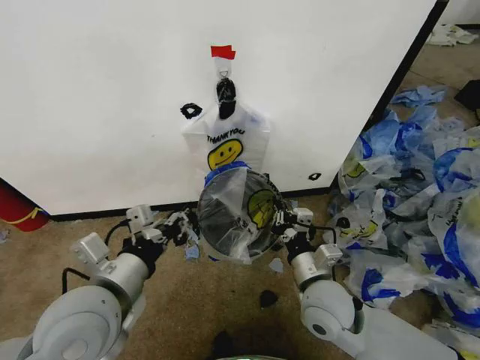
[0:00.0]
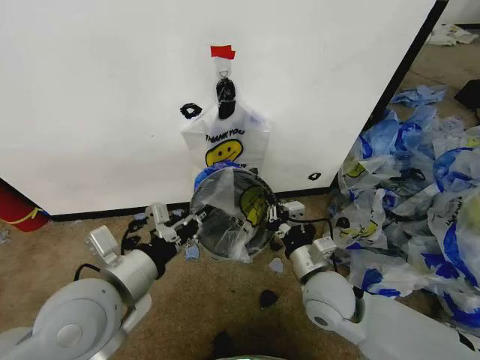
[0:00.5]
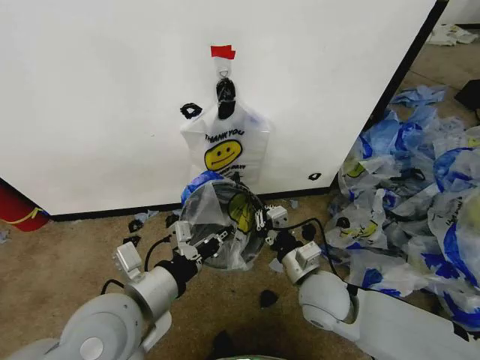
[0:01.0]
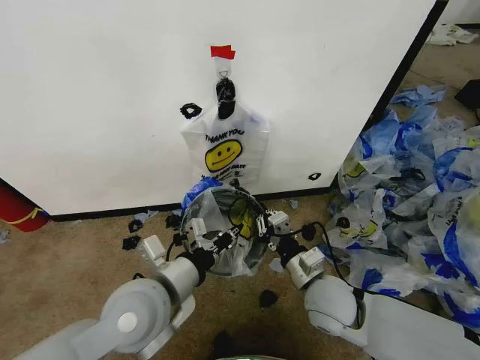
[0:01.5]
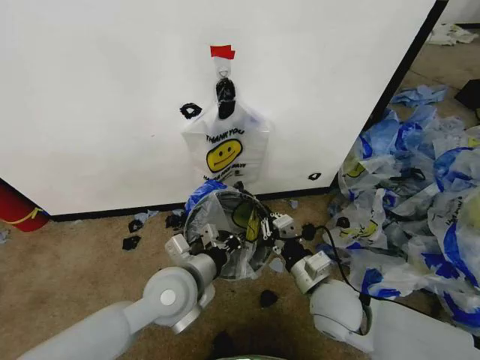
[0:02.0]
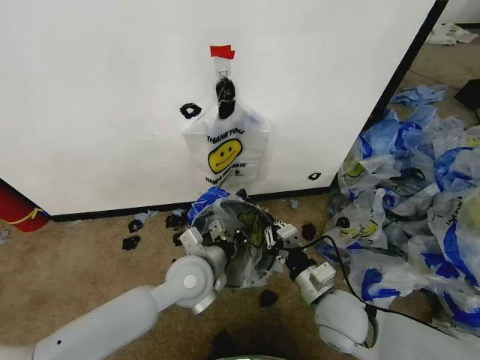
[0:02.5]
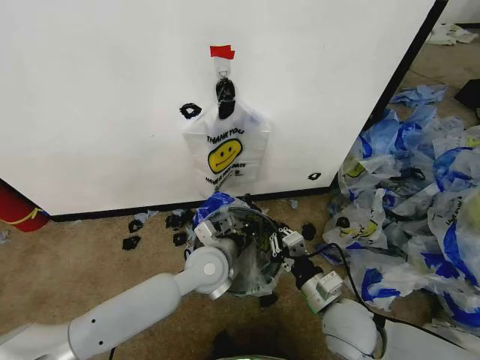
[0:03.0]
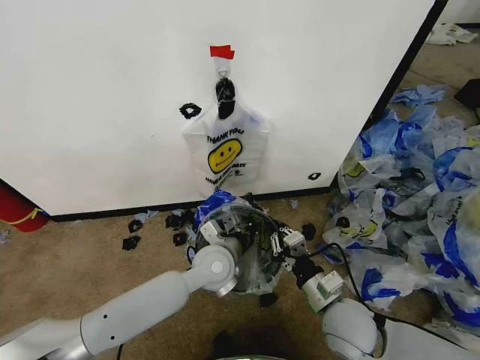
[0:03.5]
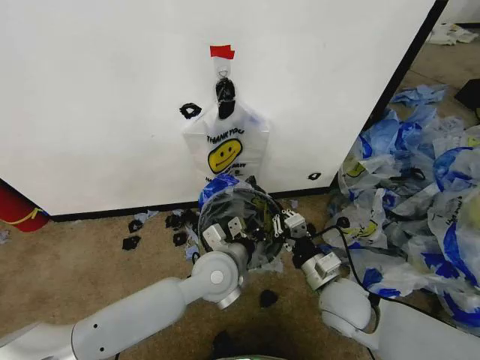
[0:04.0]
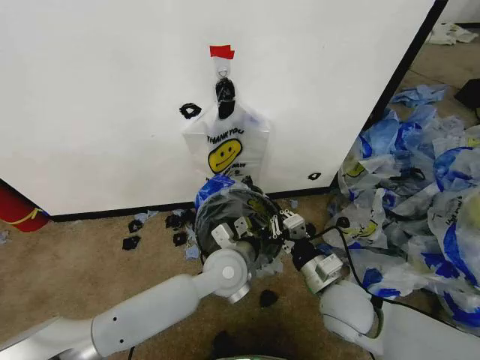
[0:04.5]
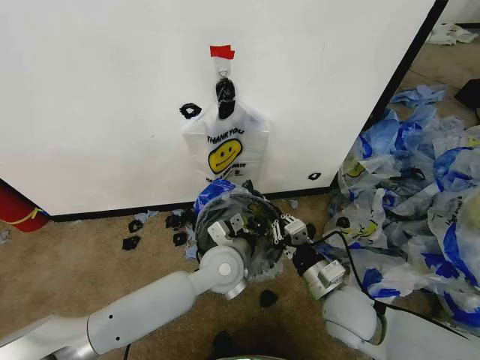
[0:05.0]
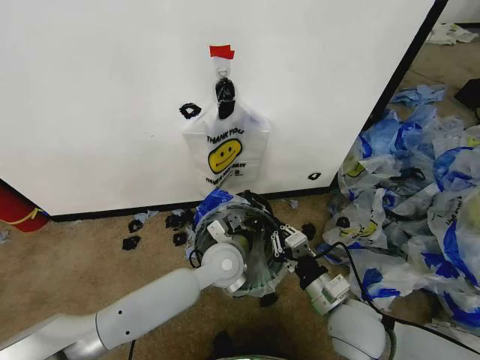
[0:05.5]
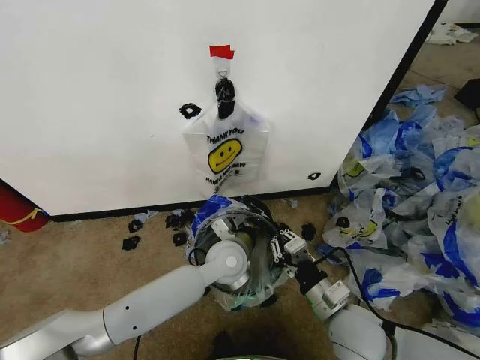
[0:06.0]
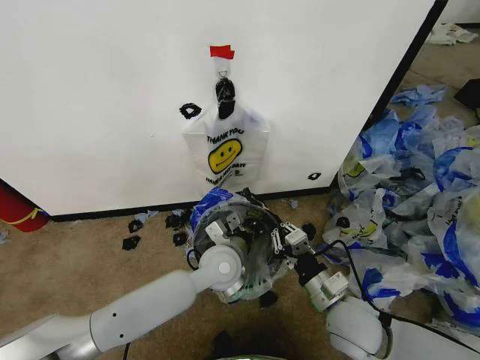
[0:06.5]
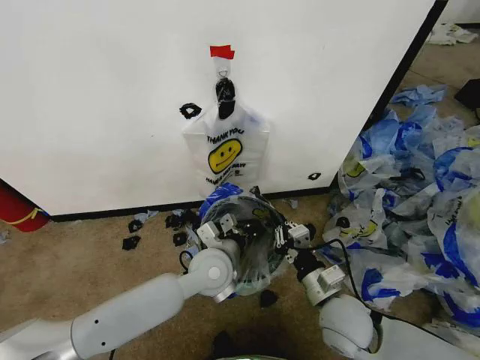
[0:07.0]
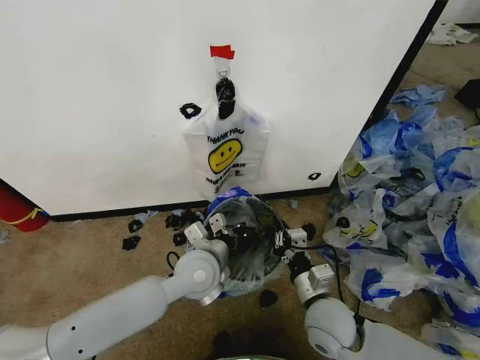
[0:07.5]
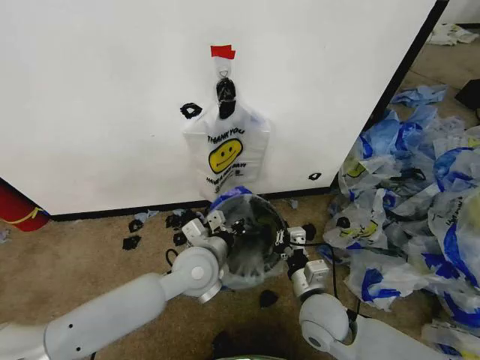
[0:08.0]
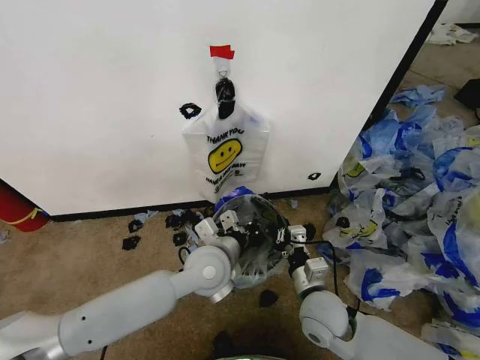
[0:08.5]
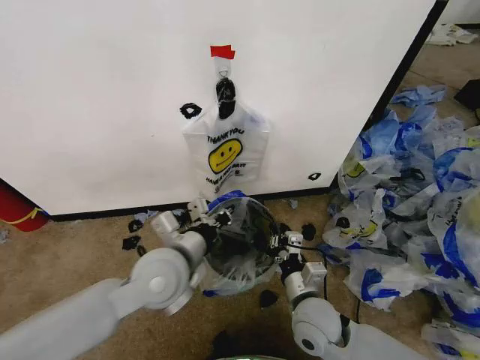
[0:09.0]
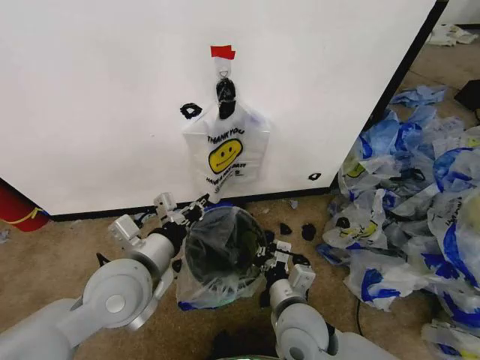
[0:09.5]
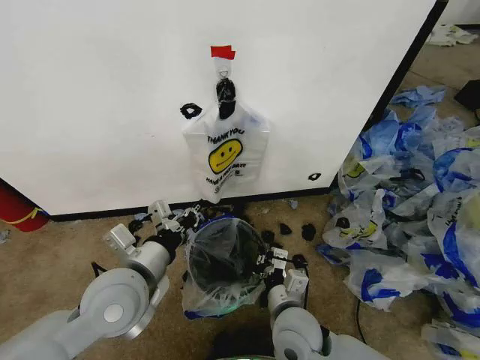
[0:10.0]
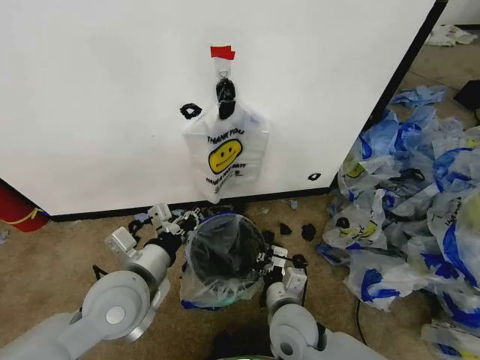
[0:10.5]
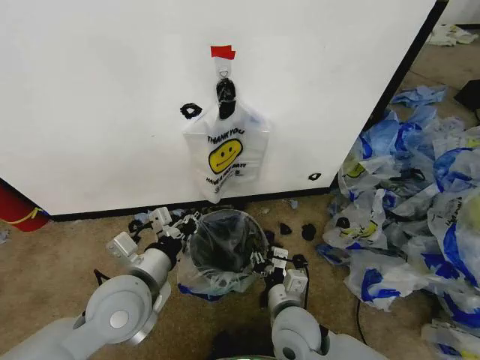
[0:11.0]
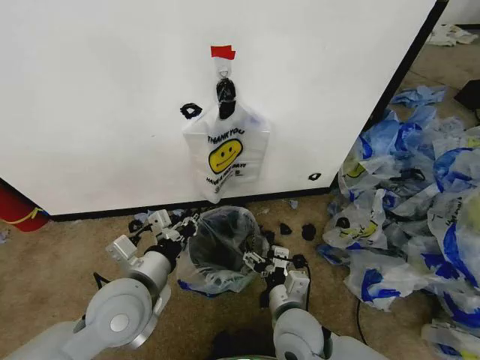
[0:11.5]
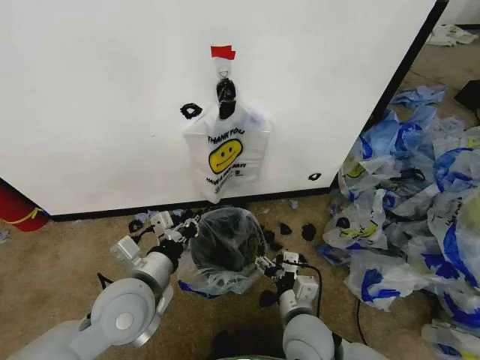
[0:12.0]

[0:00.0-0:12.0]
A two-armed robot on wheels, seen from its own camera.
Task of the whole recording: Pick up the garbage bag from the wall and place it over the trash bin.
0:00.0 to 0:02.0: The left gripper goes some 15 cm to the right, downward and forward.
0:02.0 to 0:04.0: The left gripper is displaced to the right by approximately 5 cm.
0:04.0 to 0:06.0: The right gripper is displaced backward by approximately 5 cm; the left gripper shifts by approximately 5 cm.
0:06.0 to 0:08.0: The left gripper is displaced to the left by some 5 cm; the right gripper shifts by about 5 cm.
0:08.0 to 0:10.0: The right gripper travels to the left by approximately 5 cm. The left gripper goes roughly 15 cm to the left, backward and upward.
0:10.0 to 0:12.0: The right gripper opens.

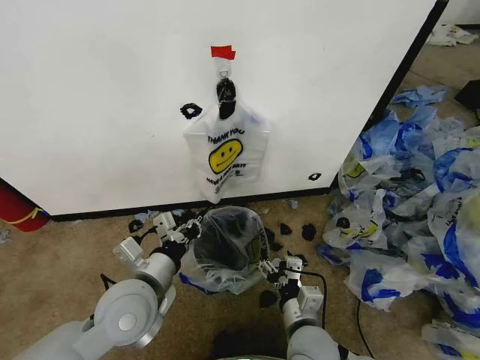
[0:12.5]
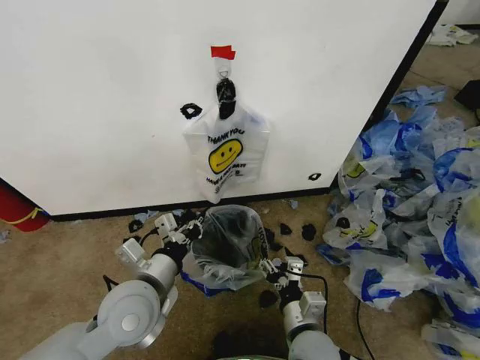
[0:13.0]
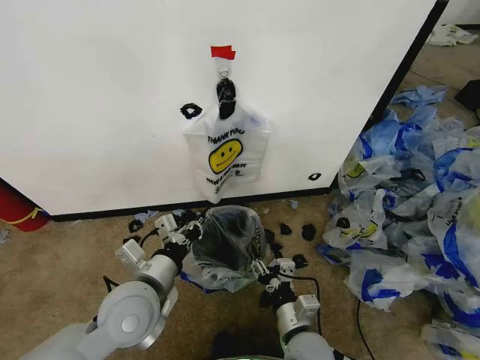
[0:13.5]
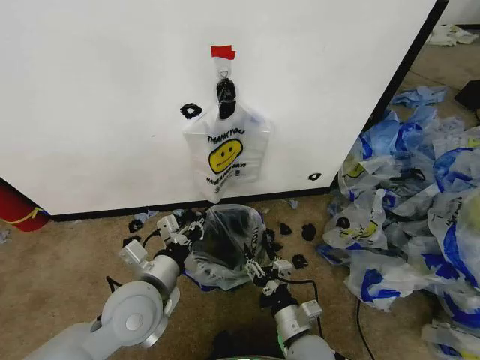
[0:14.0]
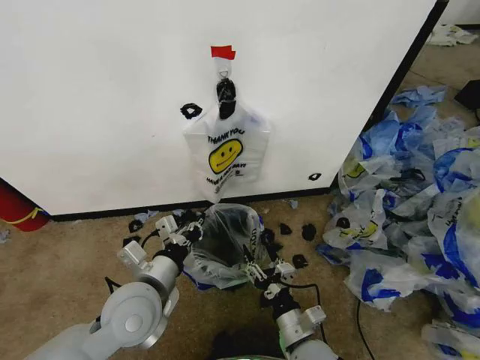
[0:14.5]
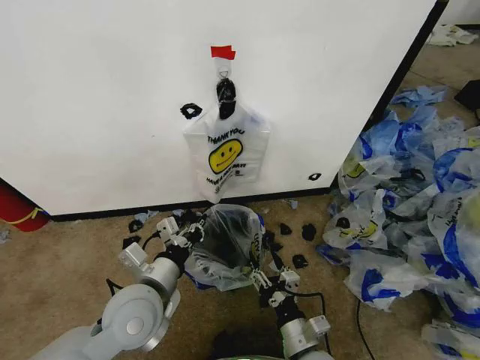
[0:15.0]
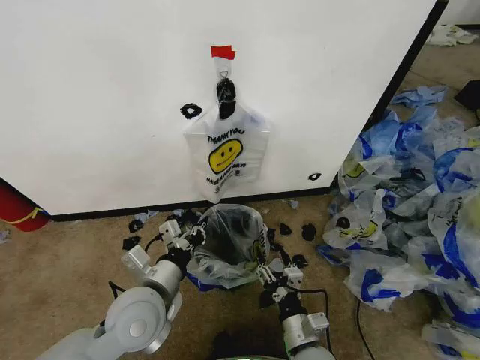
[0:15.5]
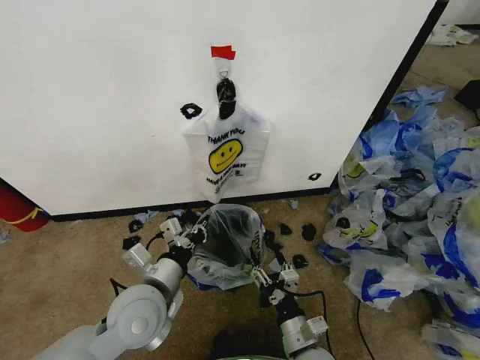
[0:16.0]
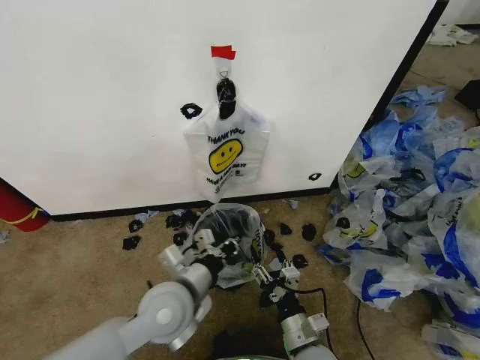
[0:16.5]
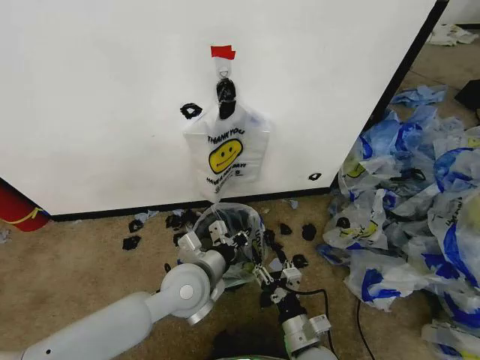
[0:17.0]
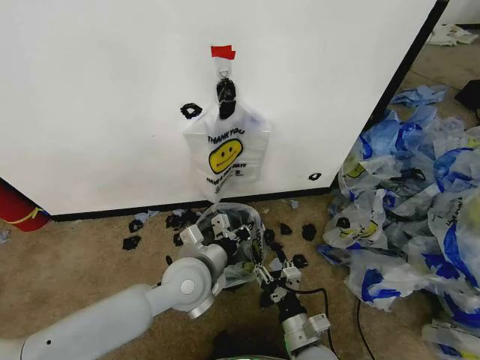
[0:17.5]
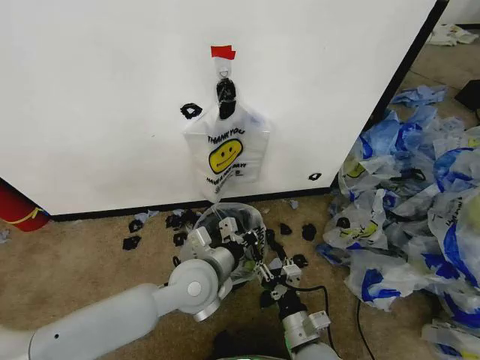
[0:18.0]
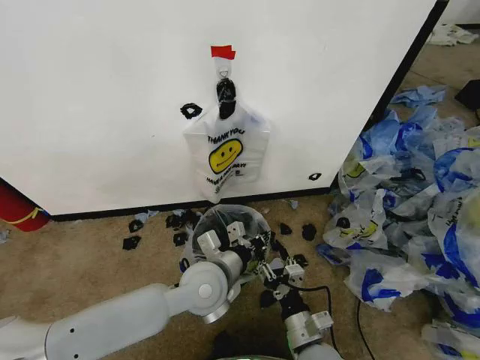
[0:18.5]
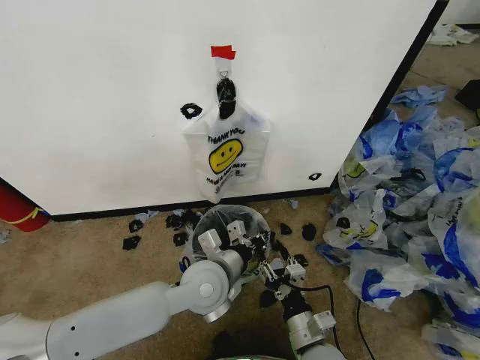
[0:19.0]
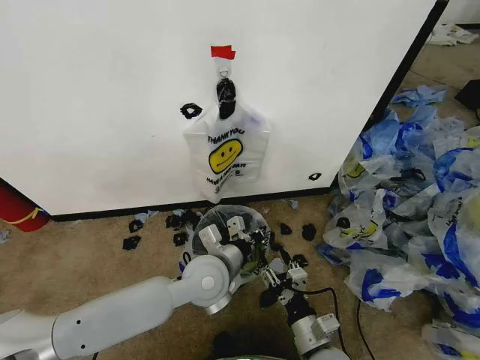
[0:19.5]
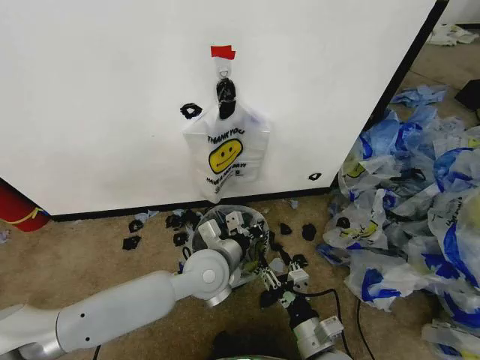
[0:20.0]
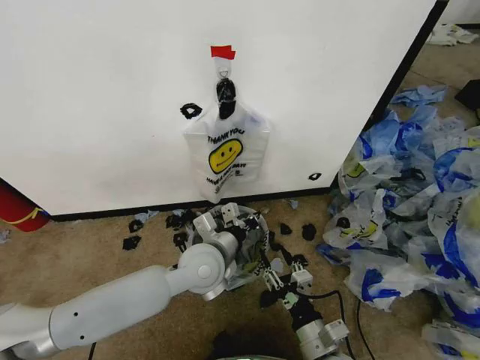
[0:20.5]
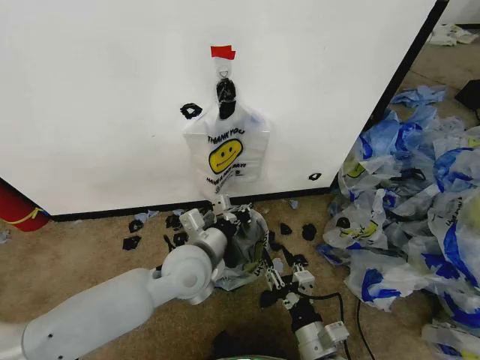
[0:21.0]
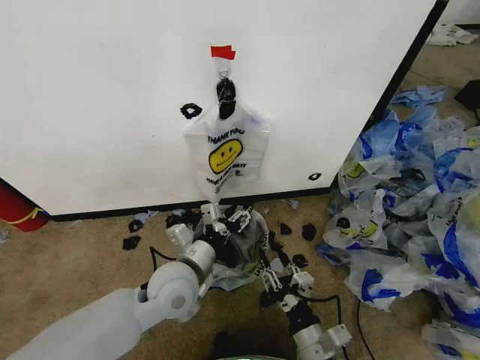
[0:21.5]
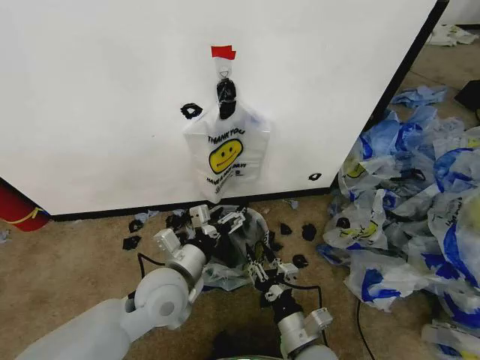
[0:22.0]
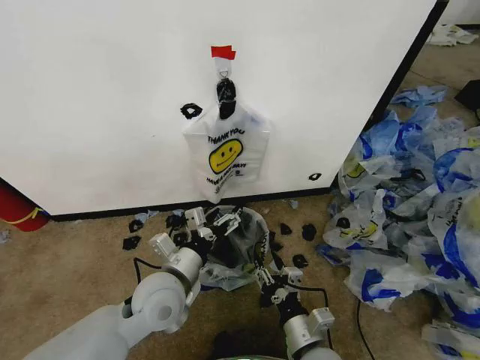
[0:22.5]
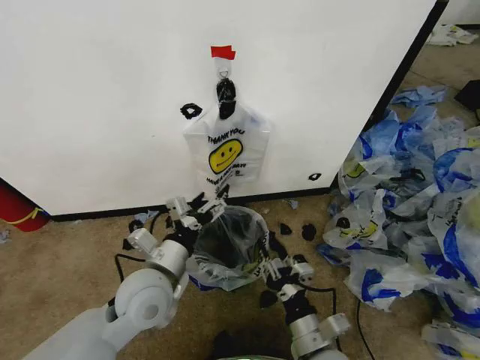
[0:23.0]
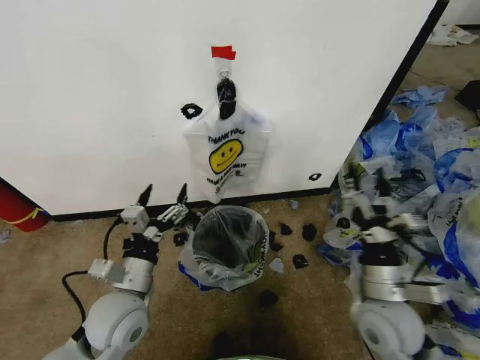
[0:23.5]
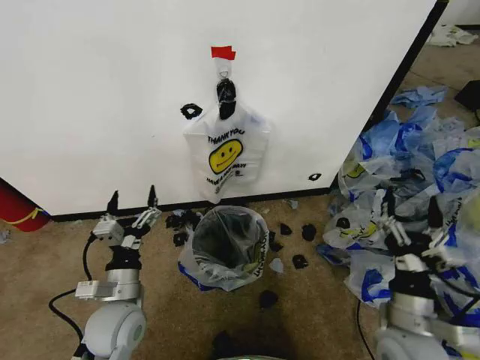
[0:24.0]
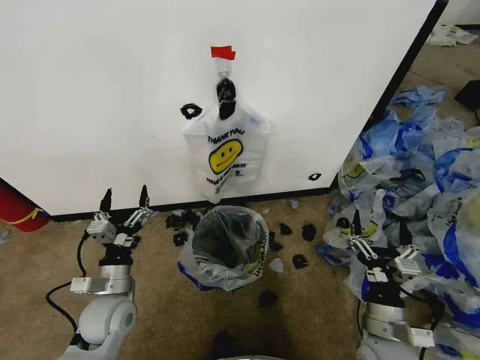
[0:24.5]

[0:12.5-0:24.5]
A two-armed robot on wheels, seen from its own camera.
Task of the whole recording: Pick up the garbage bag from the wall and place it over the trash bin.
0:14.5 to 0:16.5: The left gripper travels to the right by roughly 5 cm.
0:16.5 to 0:18.5: The left gripper goes approximately 5 cm to the right.
0:18.5 to 0:20.5: There are only small adjustments of the grippers.
0:20.5 to 0:22.5: The left gripper goes about 10 cm to the left and backward, and opens.
0:22.5 to 0:24.5: The left gripper shifts roughly 15 cm to the left and downward, while the right gripper goes approximately 15 cm to the right, and opens.

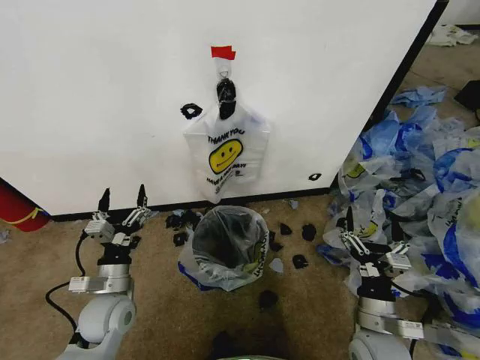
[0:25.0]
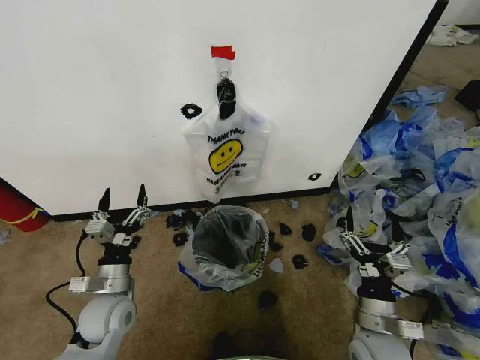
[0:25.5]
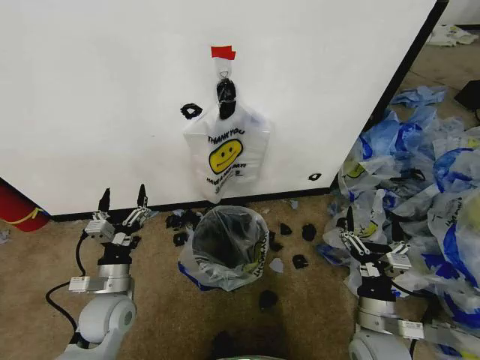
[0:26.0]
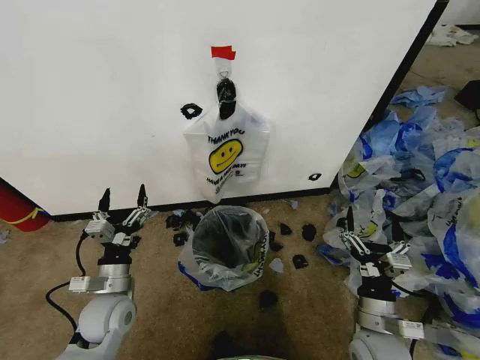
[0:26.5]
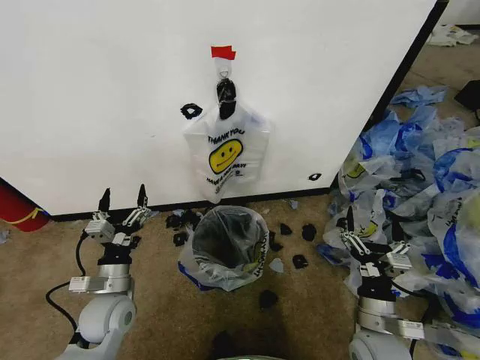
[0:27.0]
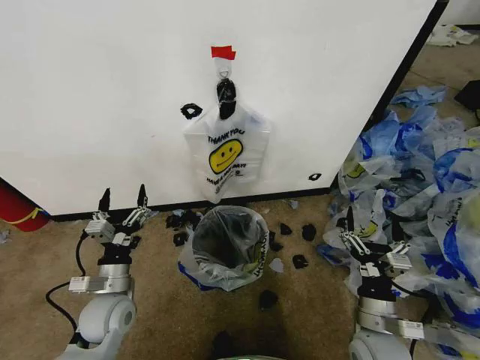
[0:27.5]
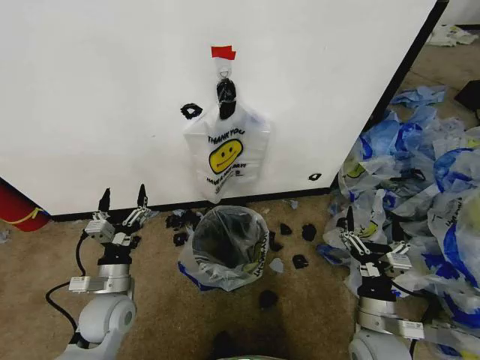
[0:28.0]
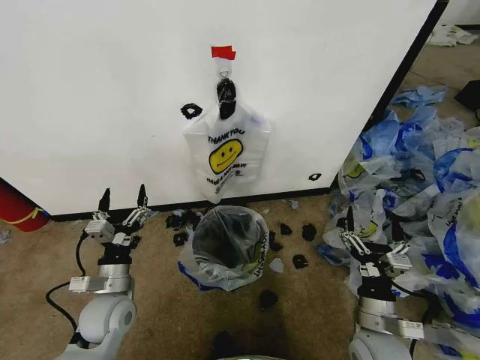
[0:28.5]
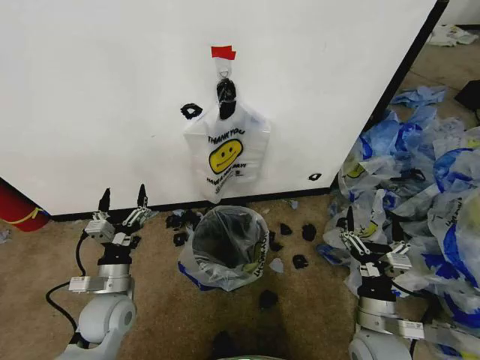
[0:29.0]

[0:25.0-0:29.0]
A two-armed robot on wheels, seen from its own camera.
Task of the whole recording: Pick up the garbage bag from the wall and place it over the trash bin.
0:25.0 to 0:29.0: The two grippers keep their place.
